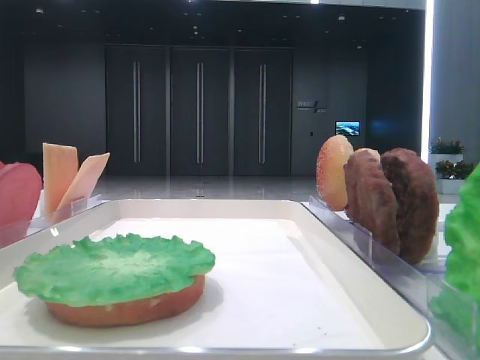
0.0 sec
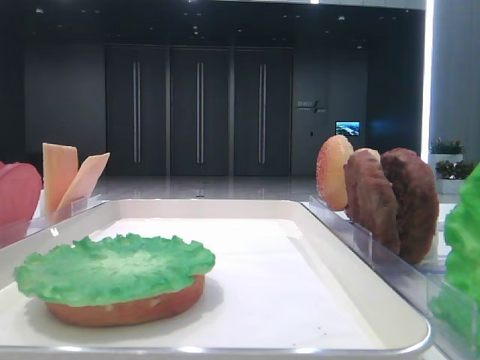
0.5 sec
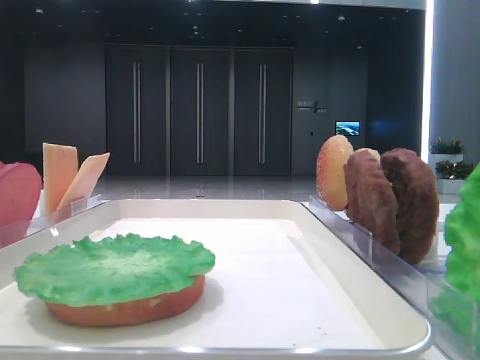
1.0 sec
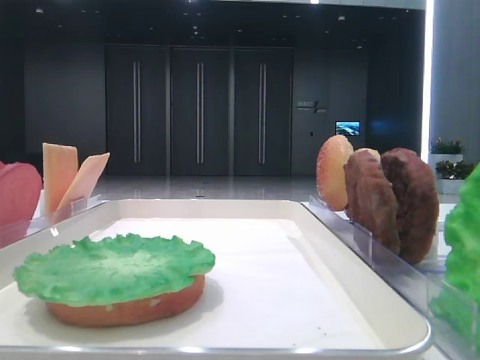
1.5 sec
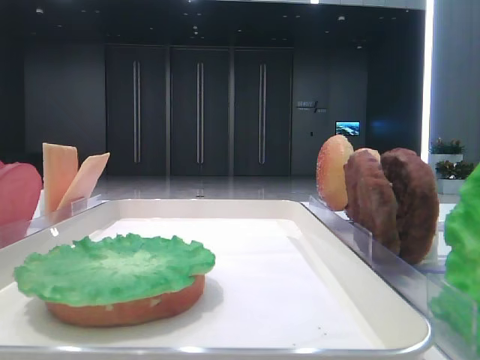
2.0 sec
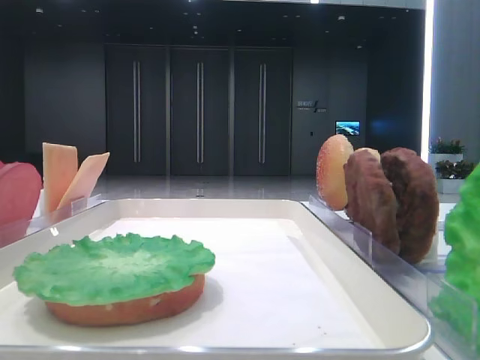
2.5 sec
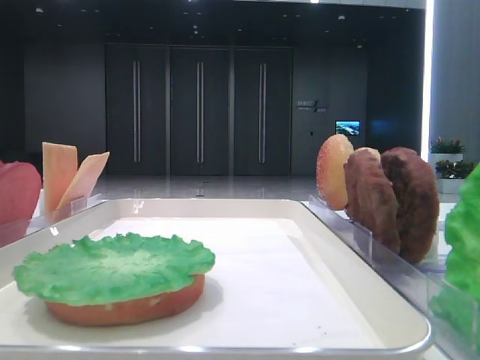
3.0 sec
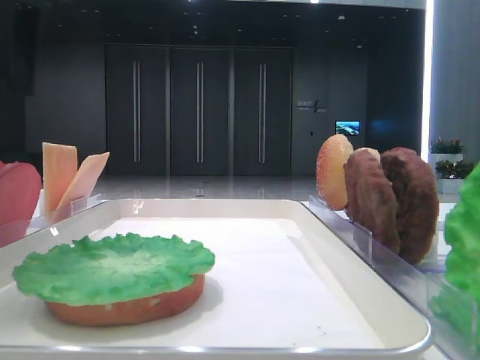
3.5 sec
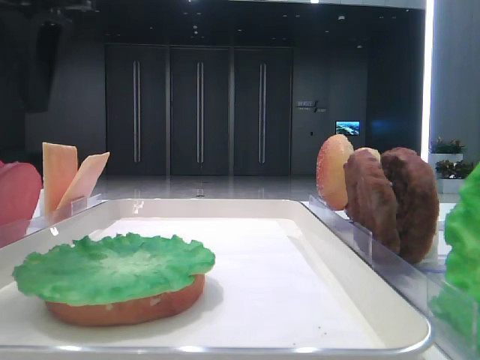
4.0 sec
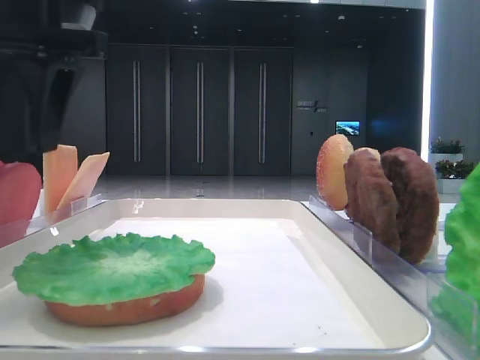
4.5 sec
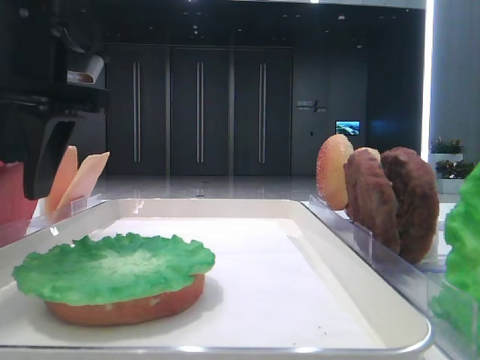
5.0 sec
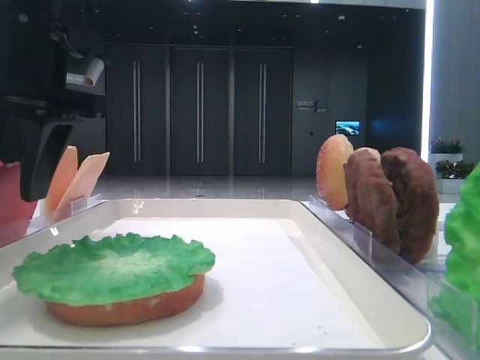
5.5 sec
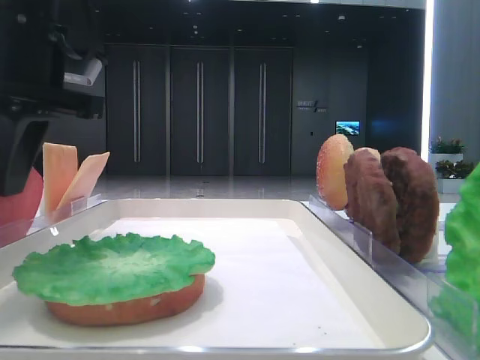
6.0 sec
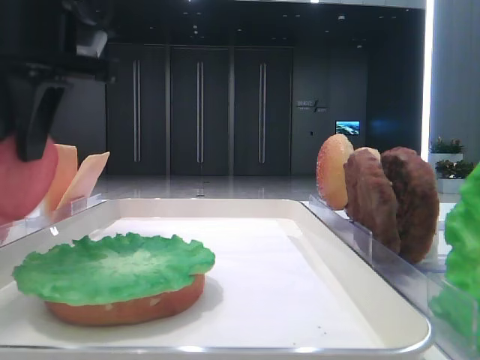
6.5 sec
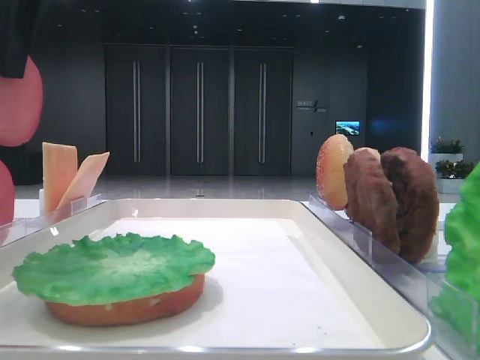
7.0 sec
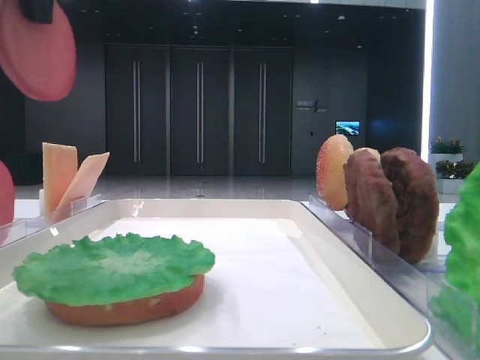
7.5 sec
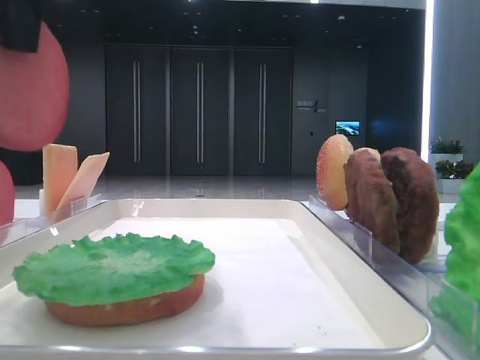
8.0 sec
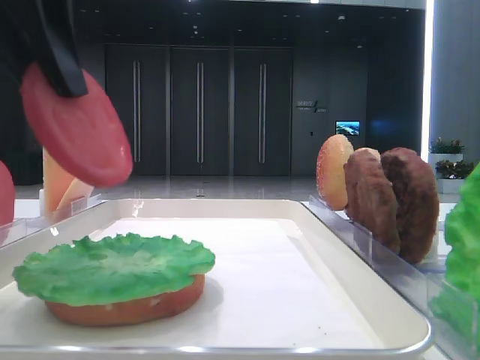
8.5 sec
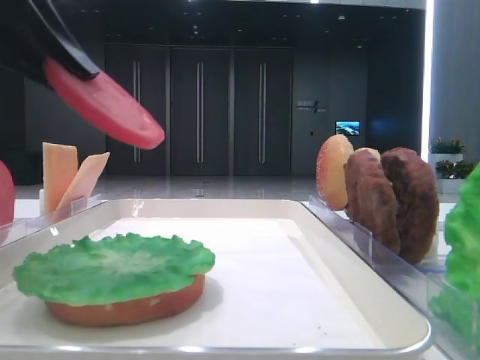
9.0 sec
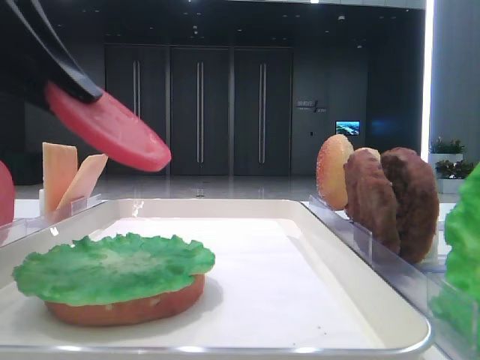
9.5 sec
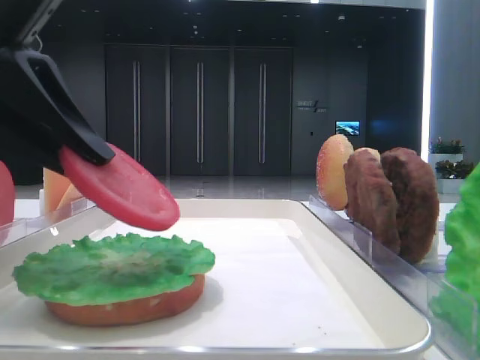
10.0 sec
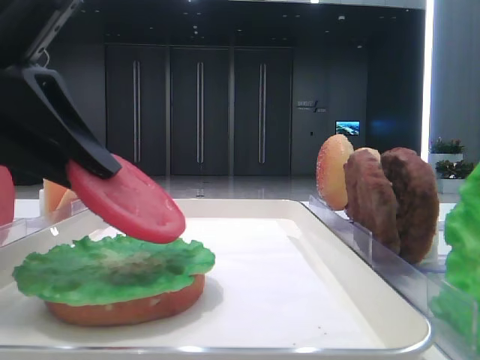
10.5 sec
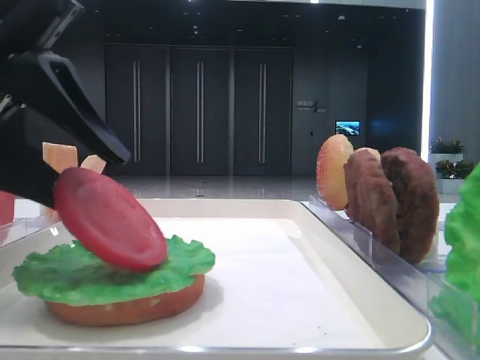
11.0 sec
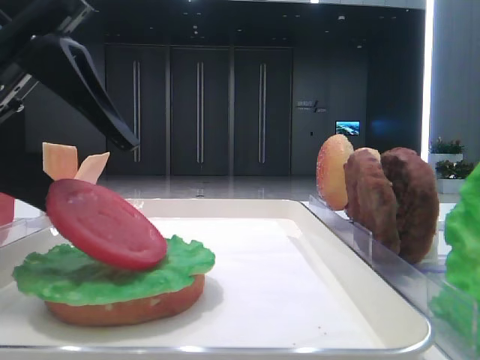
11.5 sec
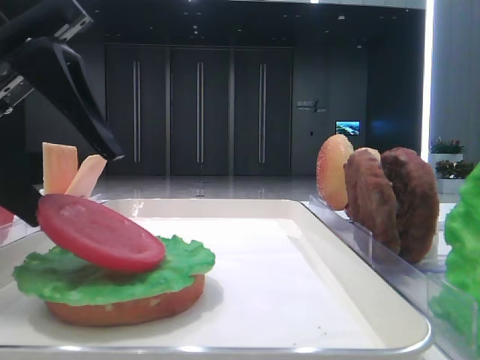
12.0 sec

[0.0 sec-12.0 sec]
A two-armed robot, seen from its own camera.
Step, 0.0 sec to 6.0 sec: Pick up the tomato slice with the left hand.
2.0 sec to 4.0 sec: The left gripper travels forward and to the right by some 30 cm.
4.0 sec to 6.0 sec: The left gripper travels downward by some 5 cm, and closes its fingers.
6.0 sec to 8.0 sec: The left gripper heads backward and upward, covering about 15 cm.
8.0 sec to 10.0 sec: The left gripper travels downward and to the left by approximately 15 cm.
10.0 sec to 12.0 sec: The left gripper opens up.

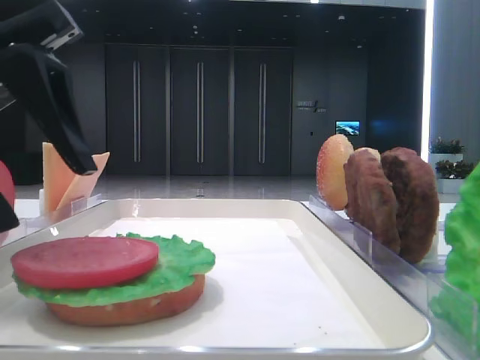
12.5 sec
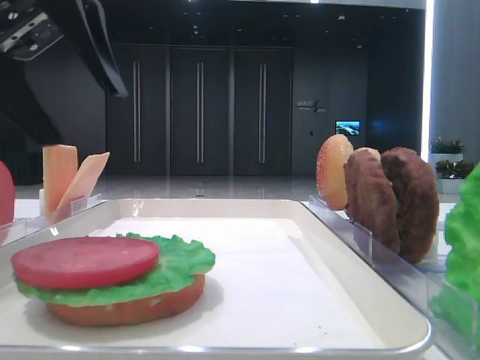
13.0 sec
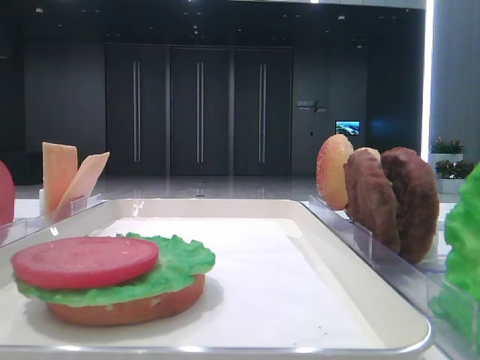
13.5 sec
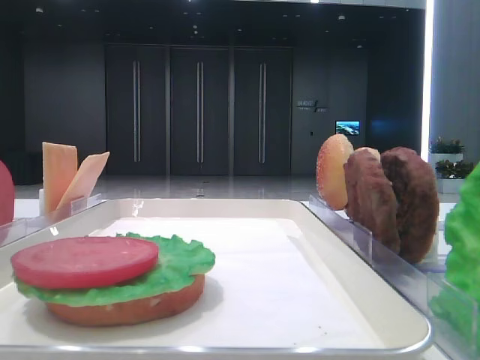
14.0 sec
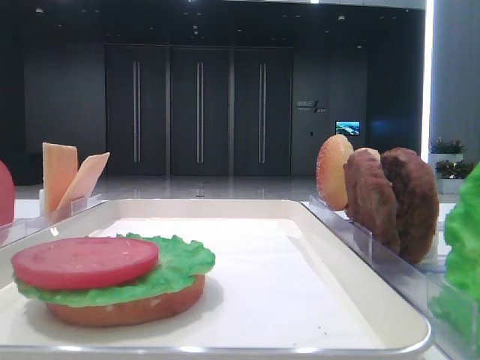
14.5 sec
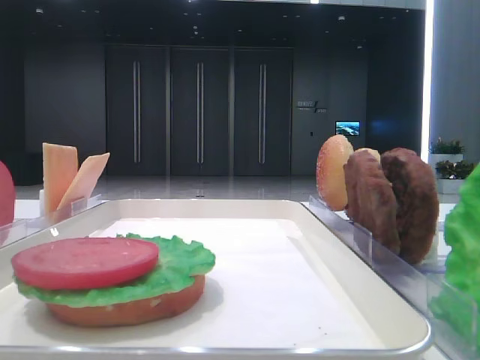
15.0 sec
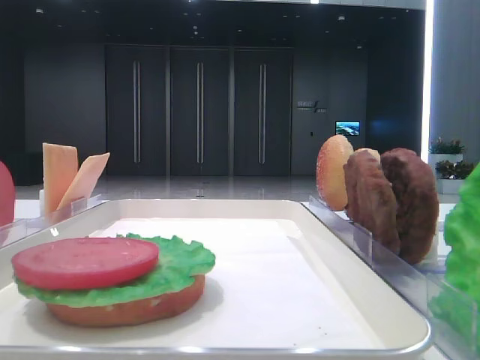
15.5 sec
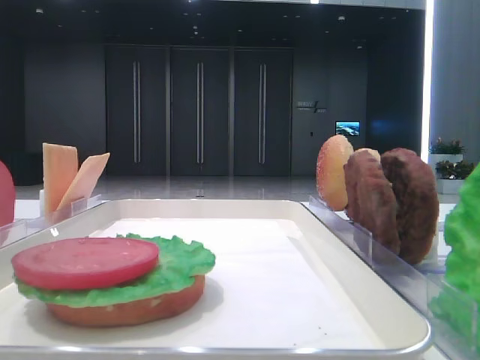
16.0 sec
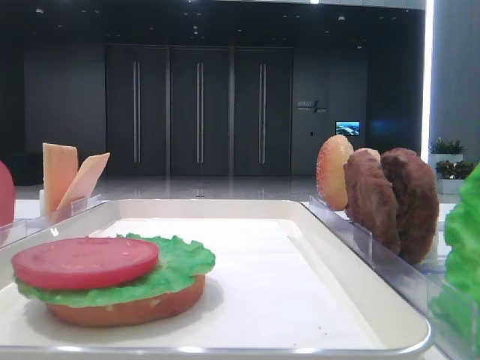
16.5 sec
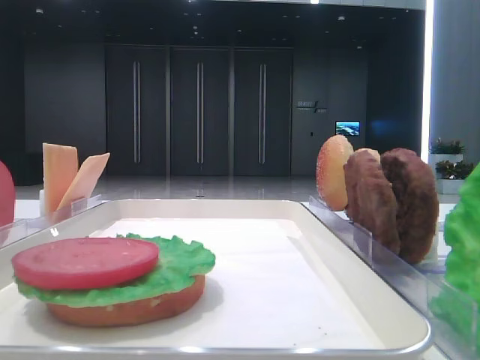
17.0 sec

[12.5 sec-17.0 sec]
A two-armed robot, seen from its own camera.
12.5 sec to 14.5 sec: The left gripper heads upward, to the left and backward, covering roughly 20 cm.

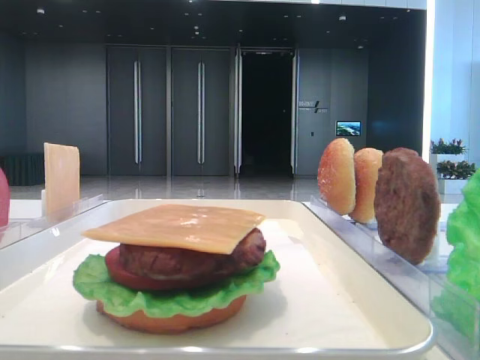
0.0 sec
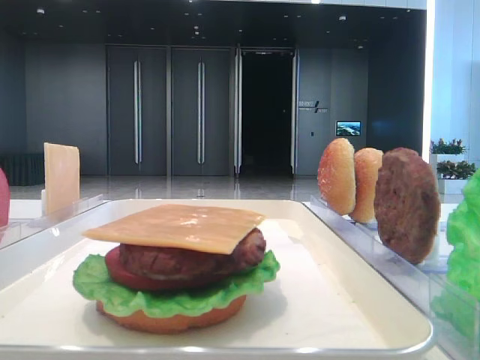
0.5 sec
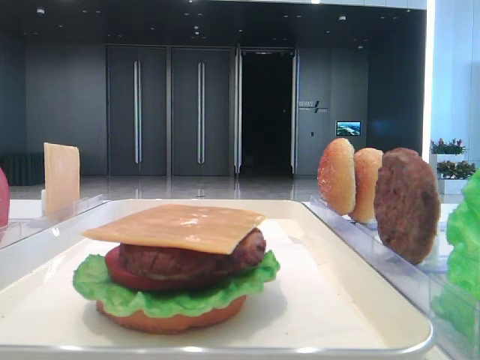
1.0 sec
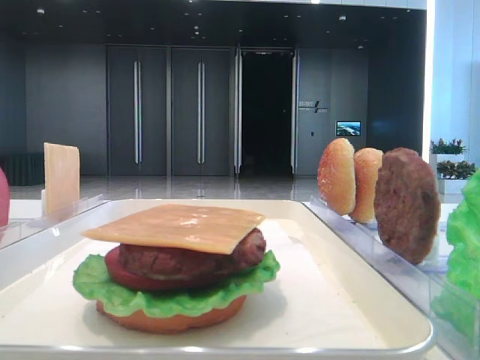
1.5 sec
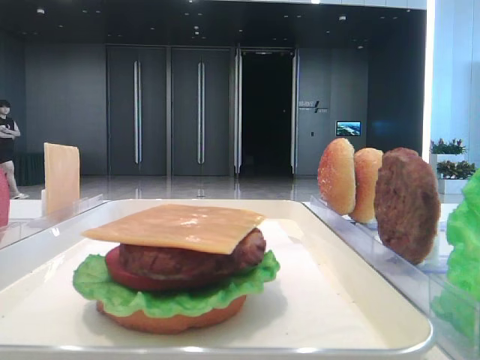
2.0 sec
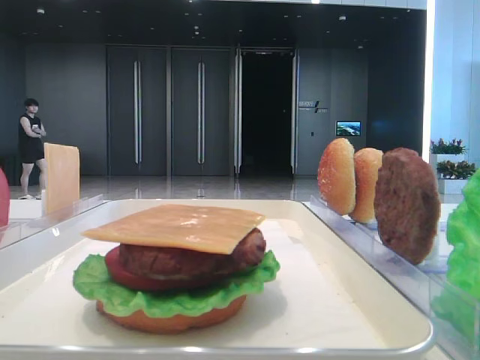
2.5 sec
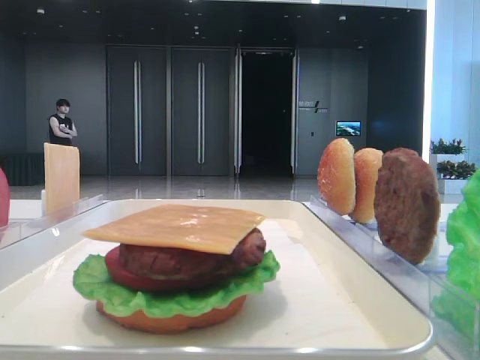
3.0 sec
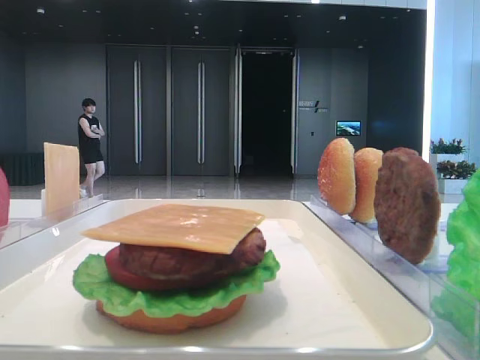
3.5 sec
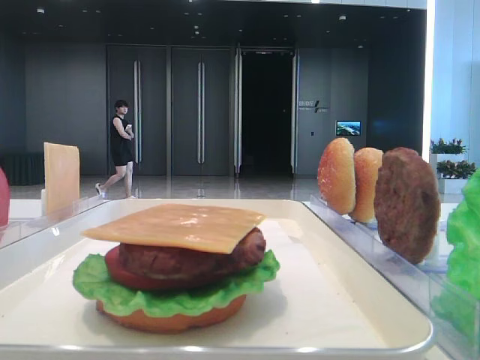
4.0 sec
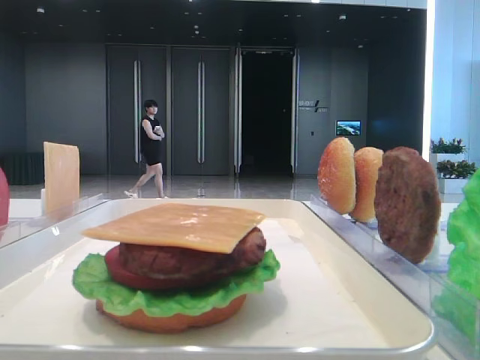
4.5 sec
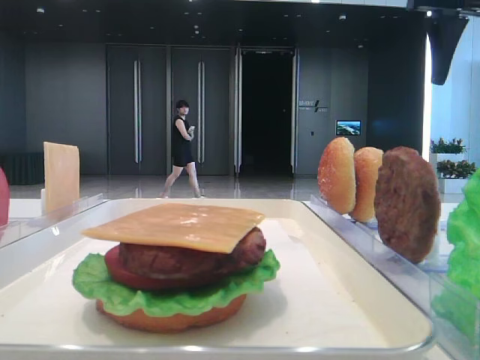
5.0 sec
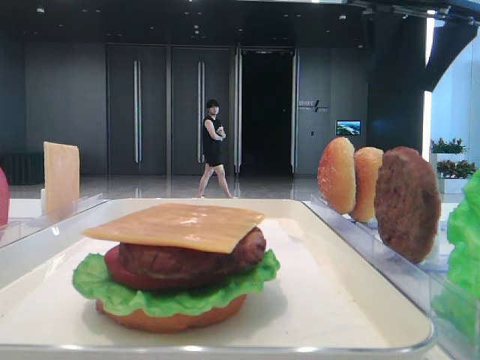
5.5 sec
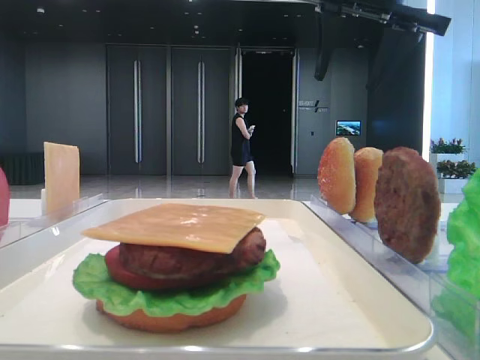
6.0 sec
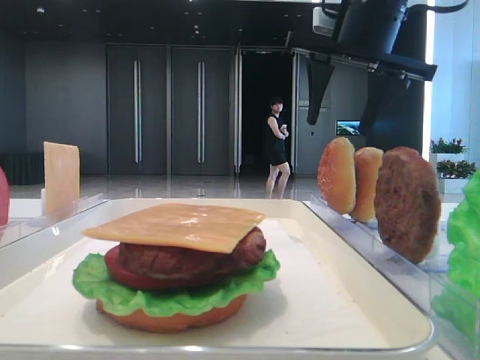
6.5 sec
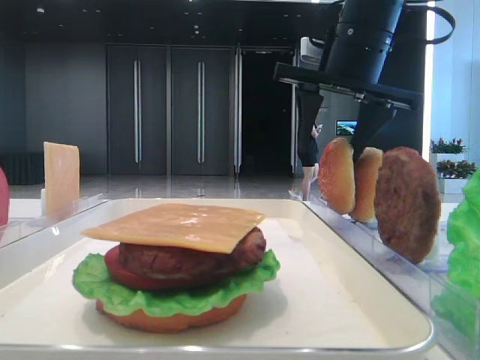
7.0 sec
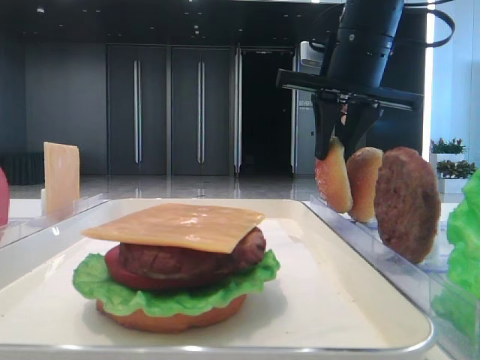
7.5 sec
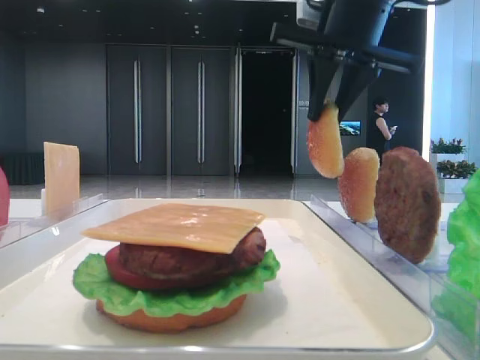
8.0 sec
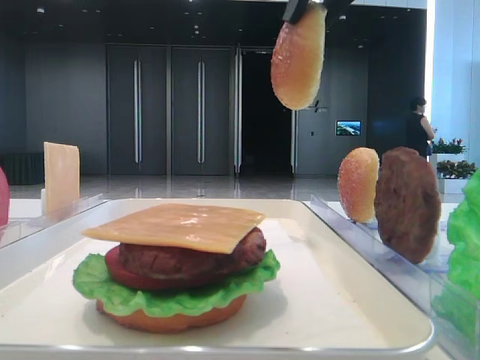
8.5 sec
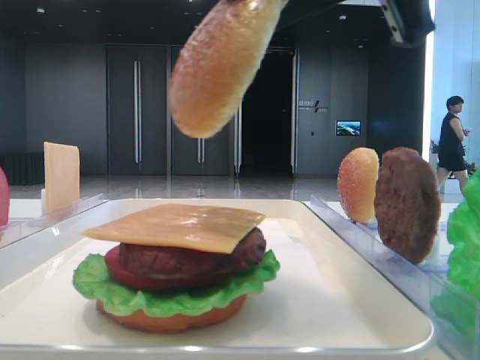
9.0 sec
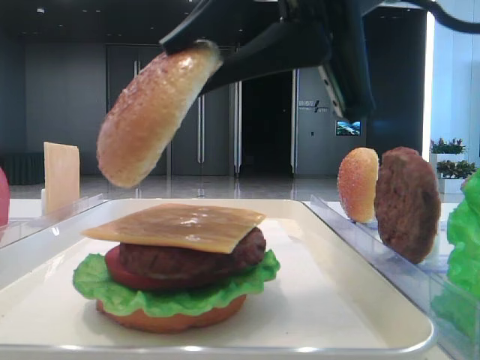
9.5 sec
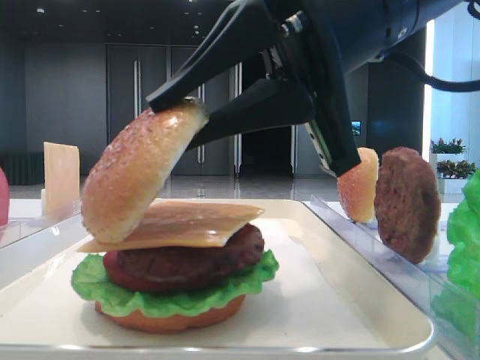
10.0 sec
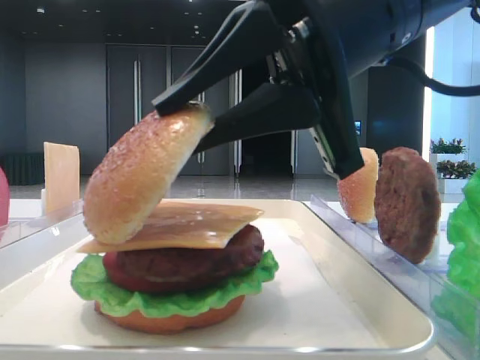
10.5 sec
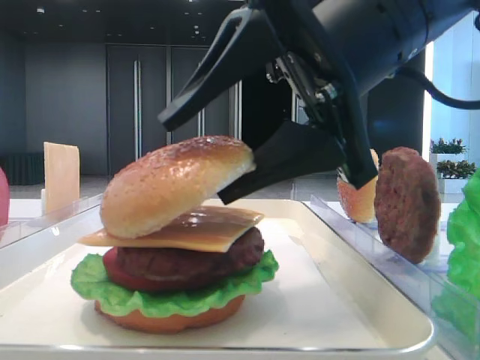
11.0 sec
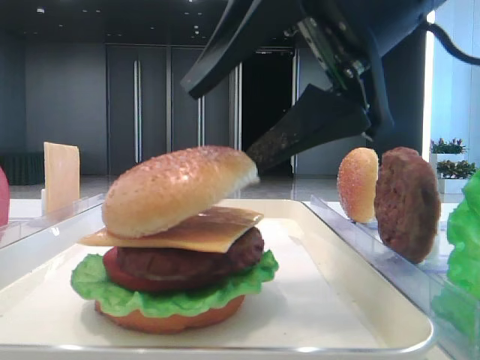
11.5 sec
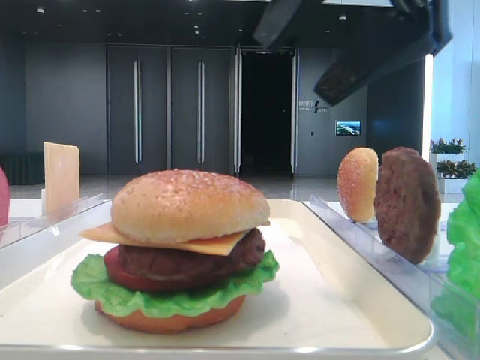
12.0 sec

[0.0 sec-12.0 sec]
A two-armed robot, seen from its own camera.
Step, 0.0 sec to 7.5 sec: Pick up the top bread slice with the right hand.
Step, 8.0 sec to 11.5 sec: Place the top bread slice on the cheese with the right hand.
2.0 sec to 4.0 sec: The left gripper closes up.
4.0 sec to 6.0 sec: The left gripper closes up. Meanwhile the right gripper shifts some 20 cm forward and to the left.
6.0 sec to 8.0 sec: The right gripper closes.
8.0 sec to 10.0 sec: The right gripper moves backward and downward, some 15 cm.
10.0 sec to 12.0 sec: The right gripper shifts about 10 cm upward and to the right, and opens its fingers.
